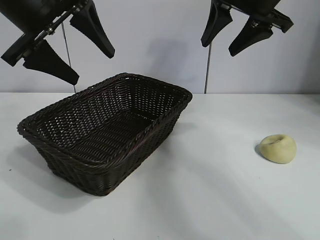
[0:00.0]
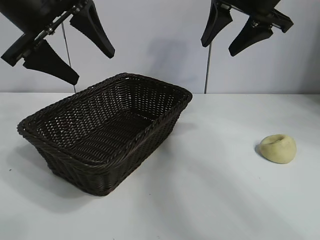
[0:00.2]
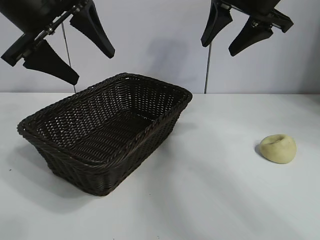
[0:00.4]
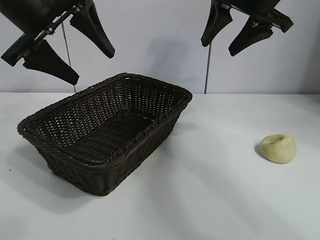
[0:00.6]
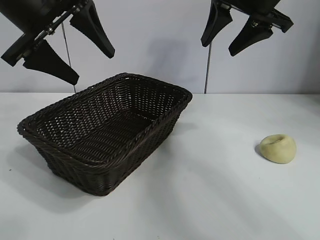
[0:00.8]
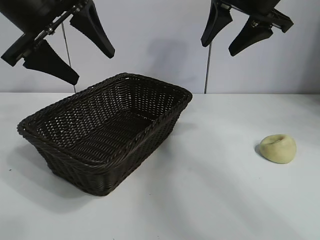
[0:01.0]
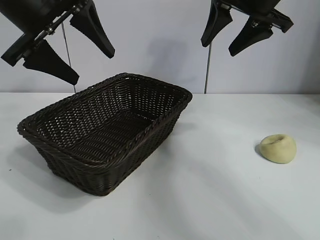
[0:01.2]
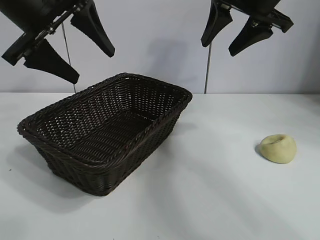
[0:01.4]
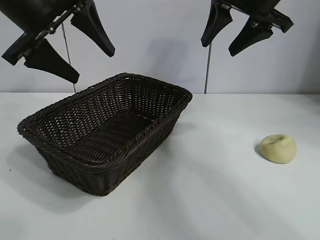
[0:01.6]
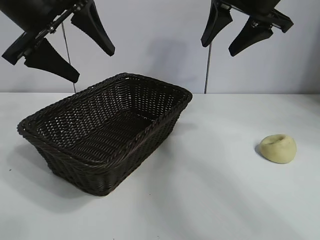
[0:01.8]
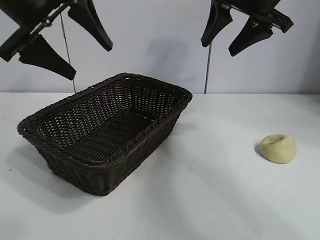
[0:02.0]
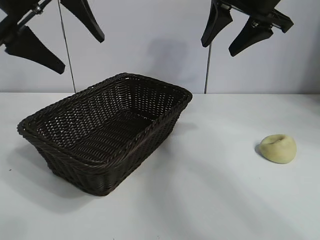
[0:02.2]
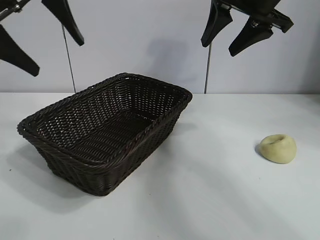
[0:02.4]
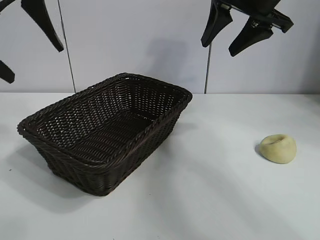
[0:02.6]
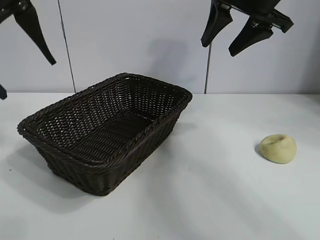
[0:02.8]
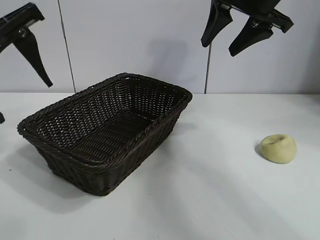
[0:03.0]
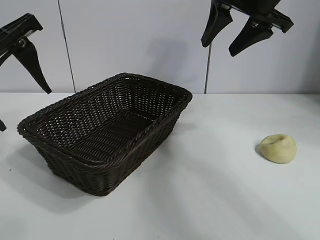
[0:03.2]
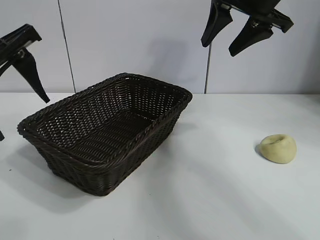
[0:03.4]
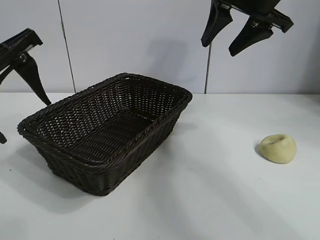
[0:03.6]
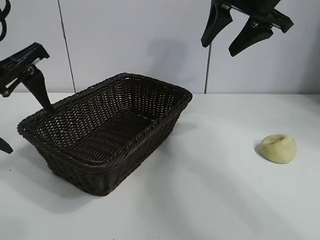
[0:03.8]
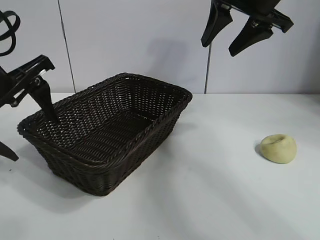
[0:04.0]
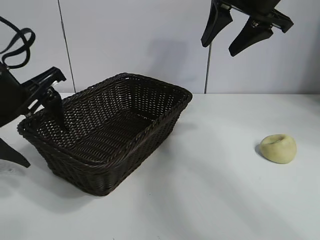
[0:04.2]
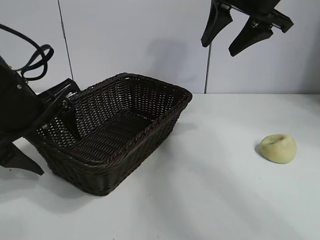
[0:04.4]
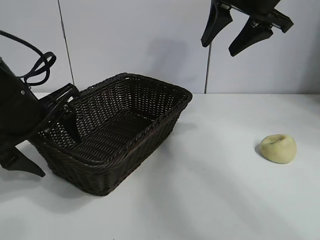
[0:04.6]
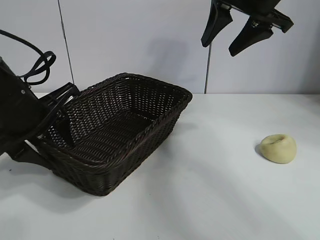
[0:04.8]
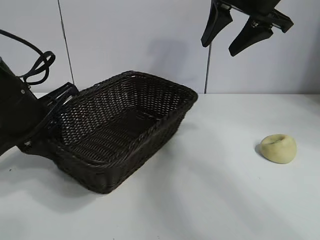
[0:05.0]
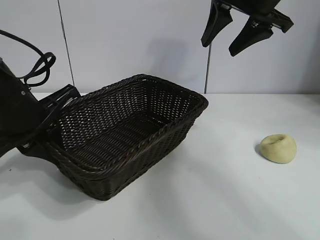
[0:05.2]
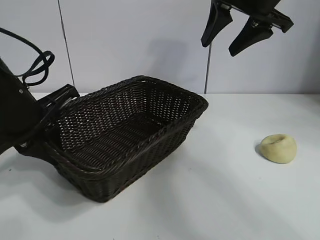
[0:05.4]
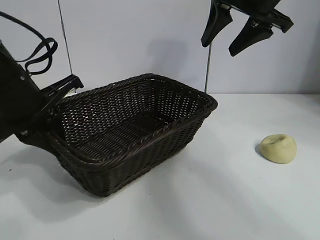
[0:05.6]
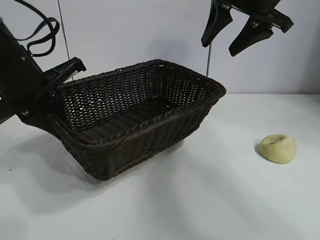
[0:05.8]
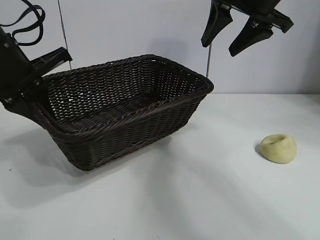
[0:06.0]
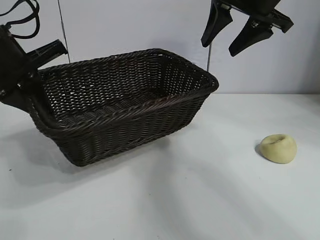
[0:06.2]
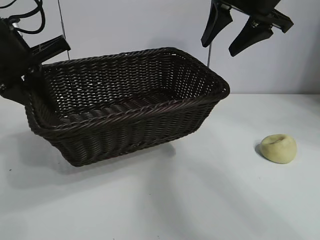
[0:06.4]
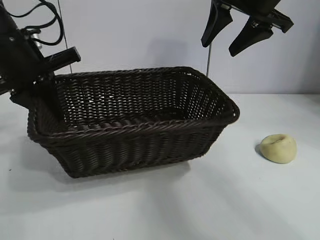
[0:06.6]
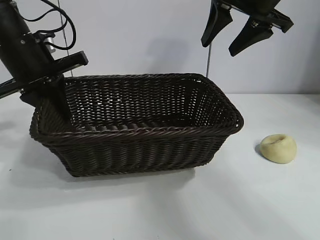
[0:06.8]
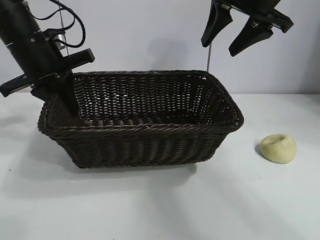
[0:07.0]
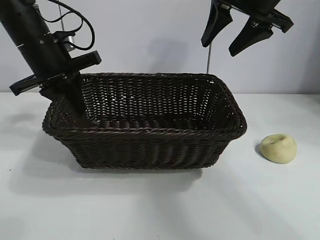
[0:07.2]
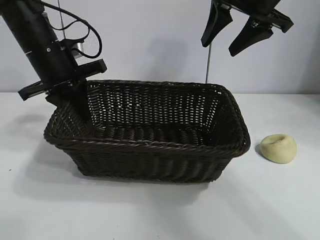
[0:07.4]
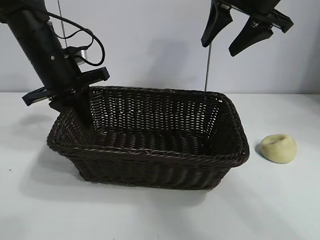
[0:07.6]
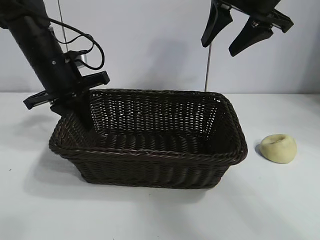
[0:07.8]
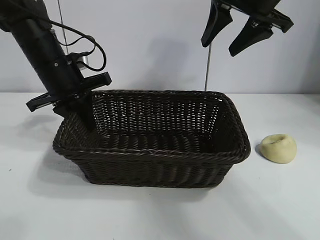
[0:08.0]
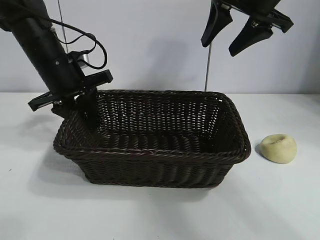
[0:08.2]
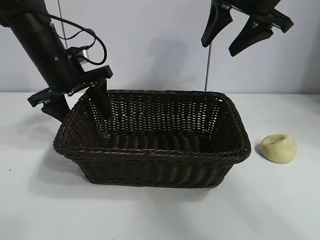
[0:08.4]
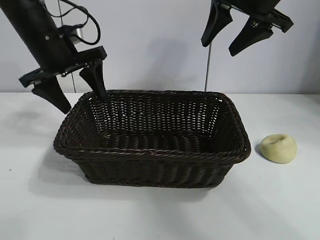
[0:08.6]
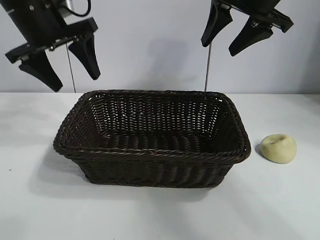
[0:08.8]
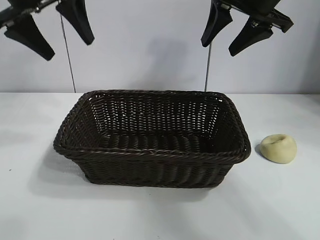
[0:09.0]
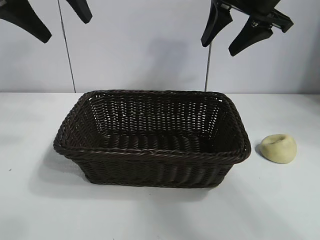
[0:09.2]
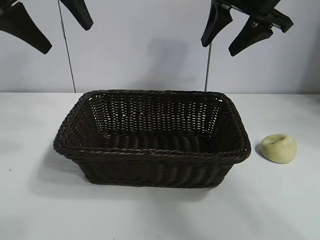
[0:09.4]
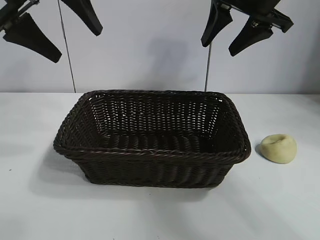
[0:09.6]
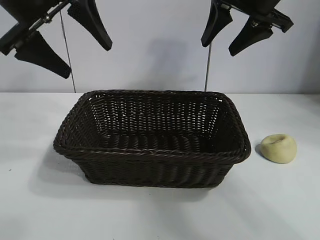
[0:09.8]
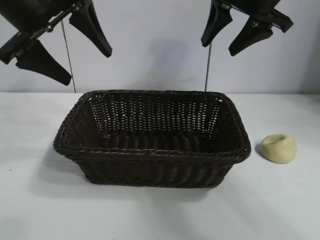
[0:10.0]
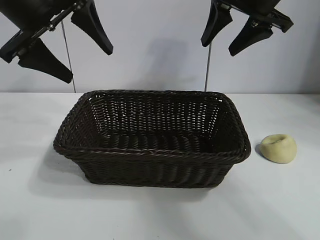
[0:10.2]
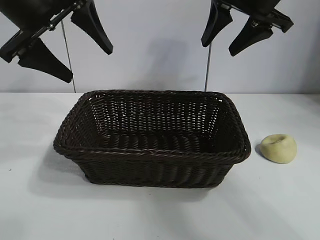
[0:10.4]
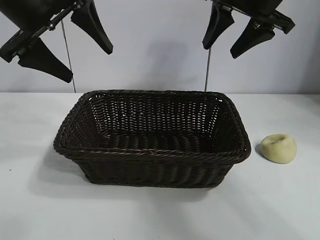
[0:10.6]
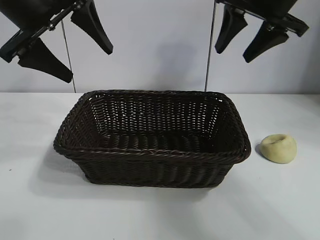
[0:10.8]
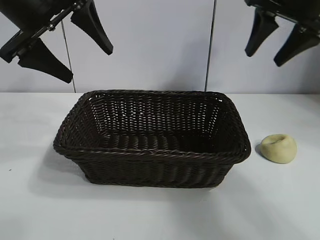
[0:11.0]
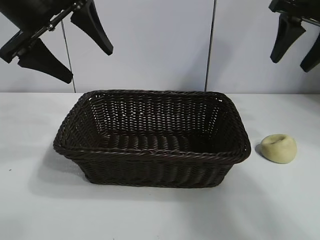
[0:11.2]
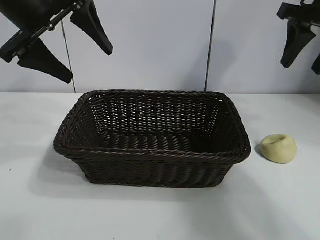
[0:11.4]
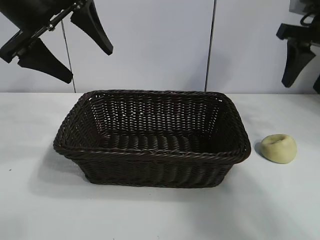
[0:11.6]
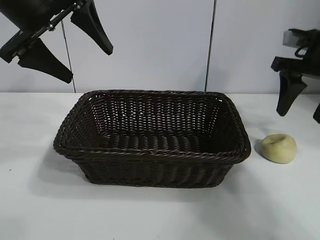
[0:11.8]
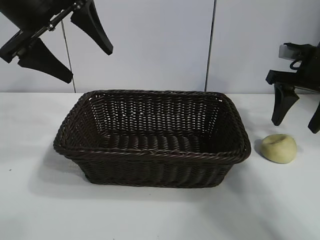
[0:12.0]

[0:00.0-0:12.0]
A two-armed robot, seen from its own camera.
Task of the whole recording: pick up the egg yolk pastry and put it into the basket.
Step, 0:01.4 to 0:05.0: Grasp the basket with left gripper.
Step, 0:05.2 to 0:08.2: Place the basket in the center of view with left gripper.

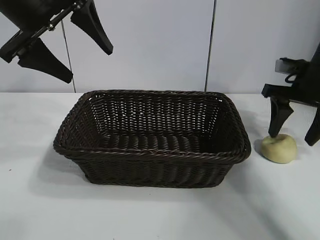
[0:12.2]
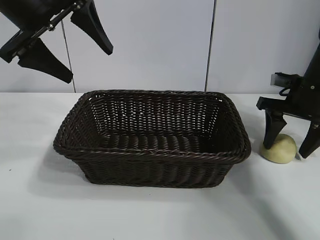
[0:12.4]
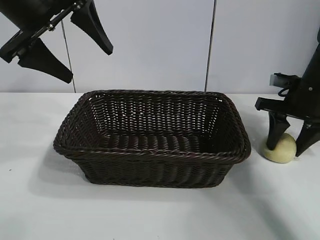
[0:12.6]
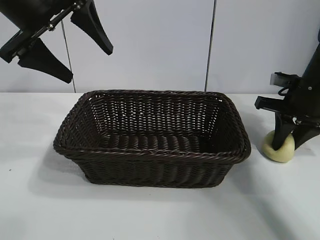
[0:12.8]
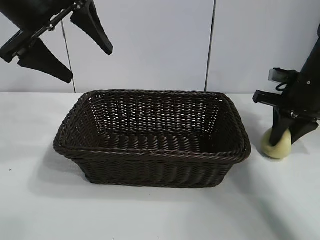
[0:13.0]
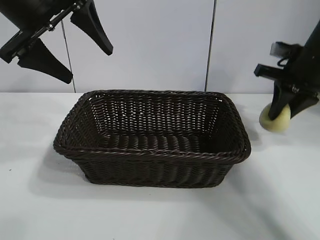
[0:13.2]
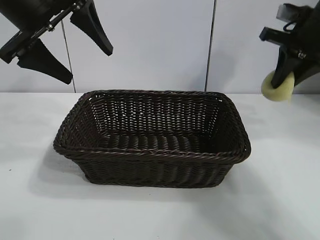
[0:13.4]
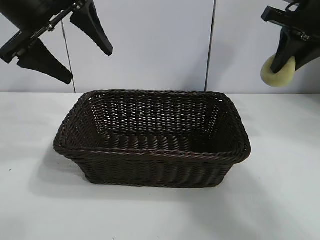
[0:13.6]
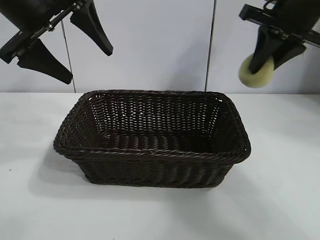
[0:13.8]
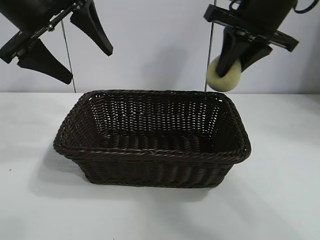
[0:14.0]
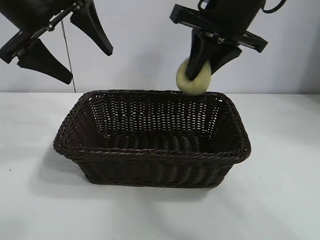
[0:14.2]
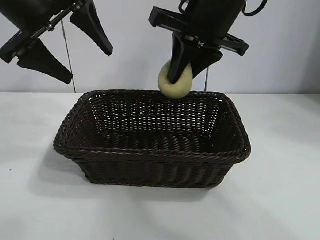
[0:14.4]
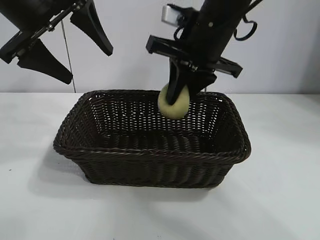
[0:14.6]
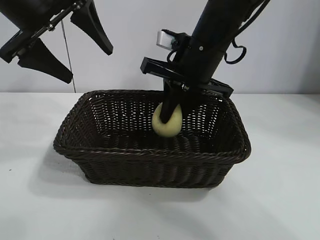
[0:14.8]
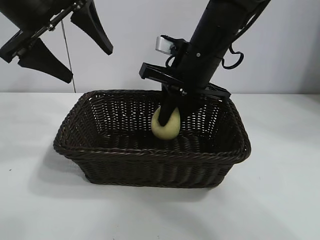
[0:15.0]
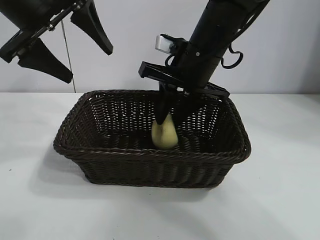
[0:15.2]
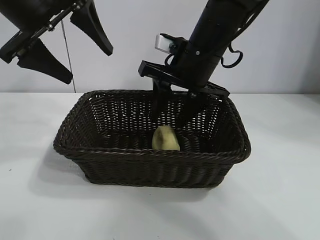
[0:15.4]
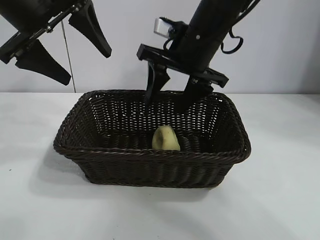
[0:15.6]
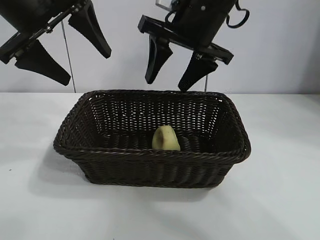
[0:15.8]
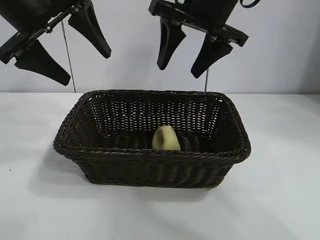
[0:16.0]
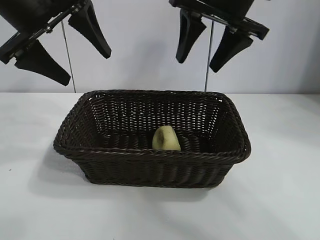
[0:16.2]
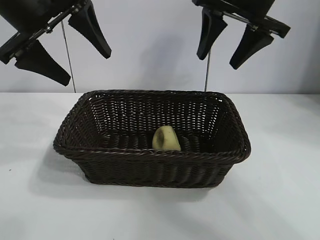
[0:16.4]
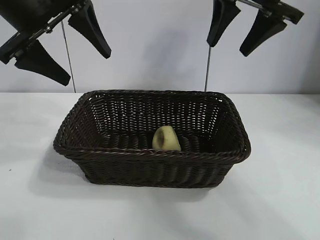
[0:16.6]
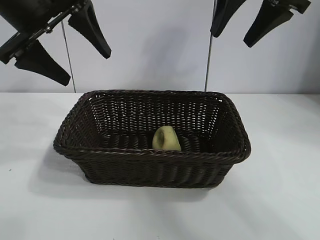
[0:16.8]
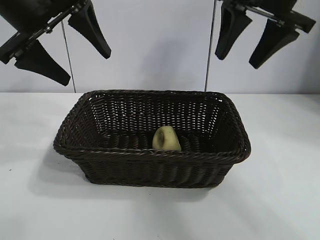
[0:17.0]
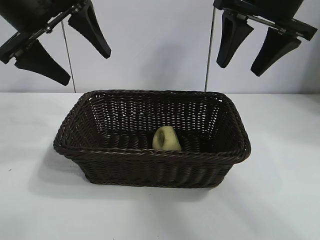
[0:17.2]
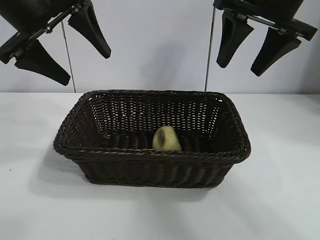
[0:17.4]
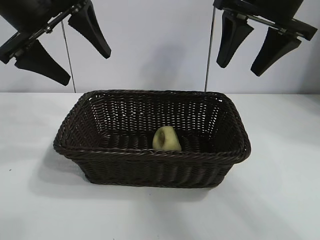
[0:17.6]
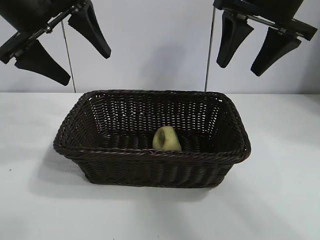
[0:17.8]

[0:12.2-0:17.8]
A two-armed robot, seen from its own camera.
Task of the whole recording: pick up the egg yolk pastry and put it into the basket.
Step, 0:13.0 to 0:15.2: Place the egg yolk pastry in the basket with right gripper.
